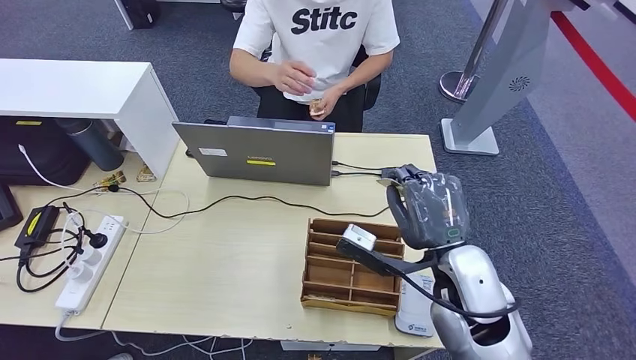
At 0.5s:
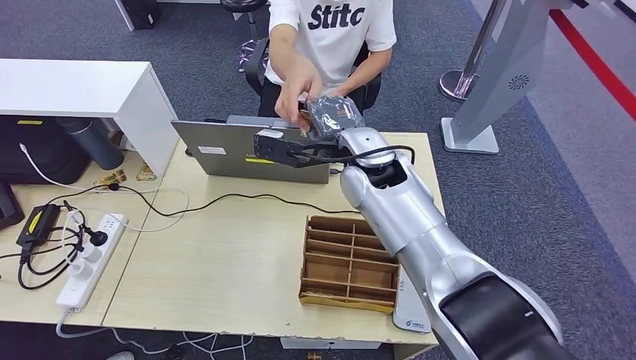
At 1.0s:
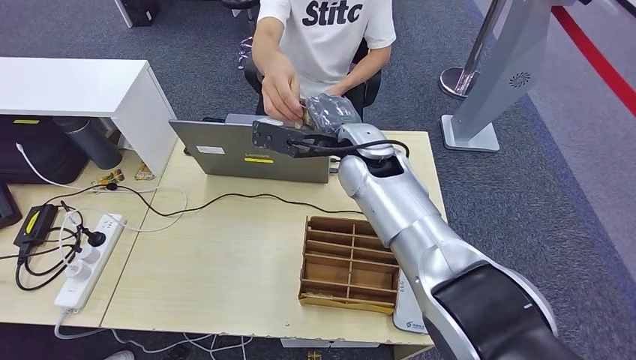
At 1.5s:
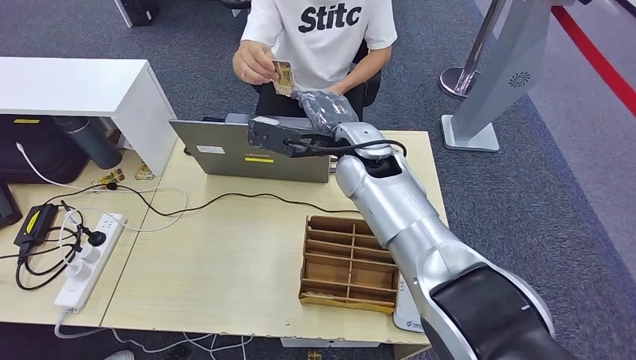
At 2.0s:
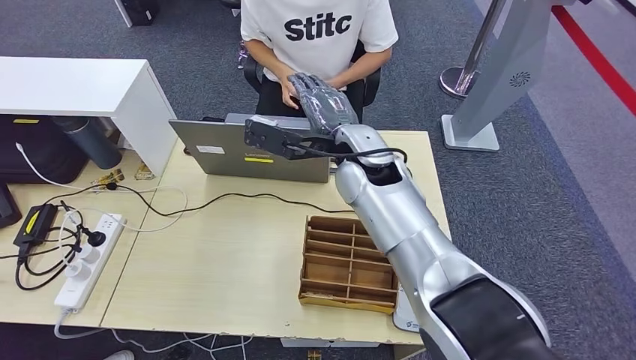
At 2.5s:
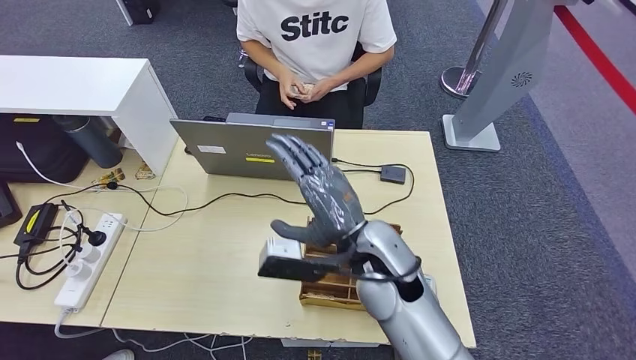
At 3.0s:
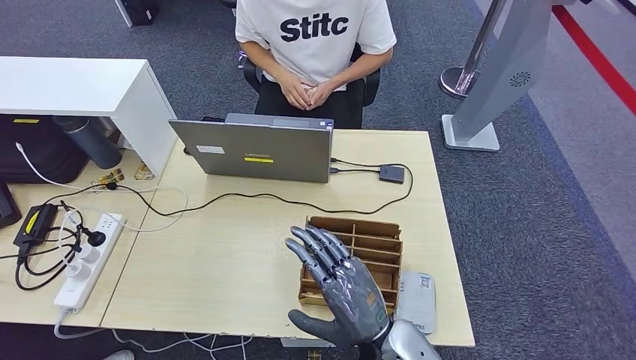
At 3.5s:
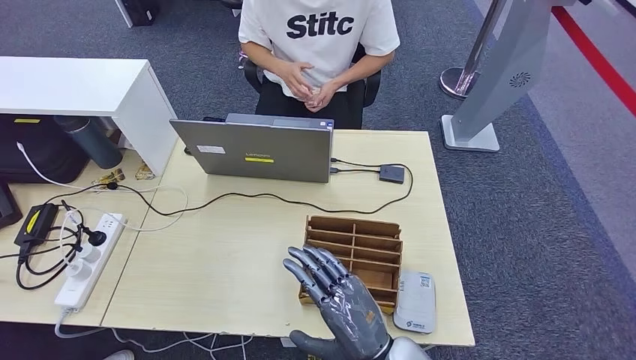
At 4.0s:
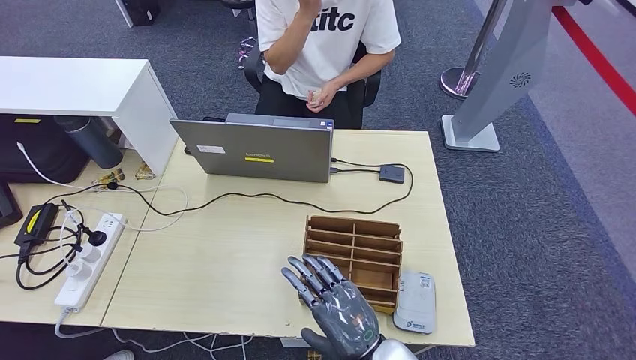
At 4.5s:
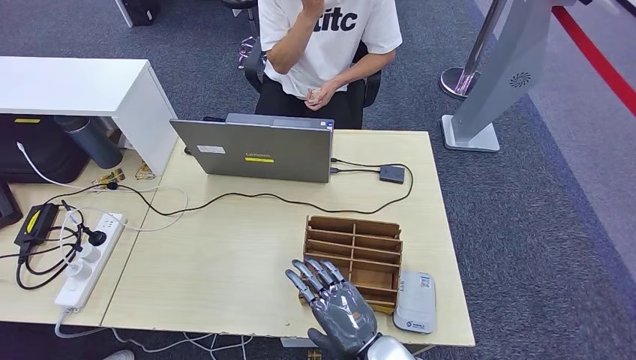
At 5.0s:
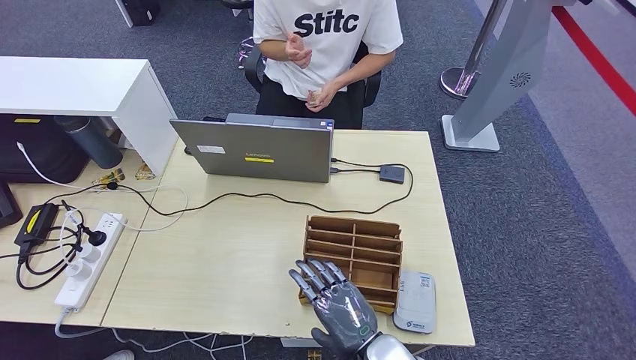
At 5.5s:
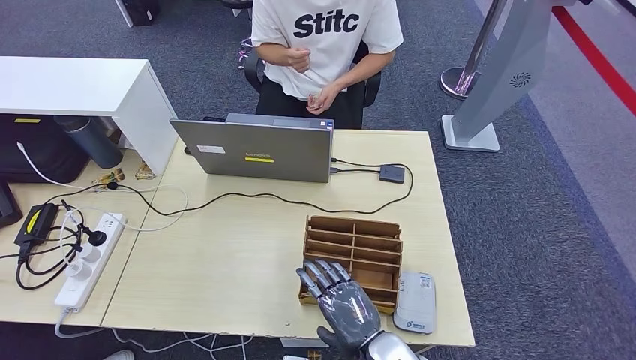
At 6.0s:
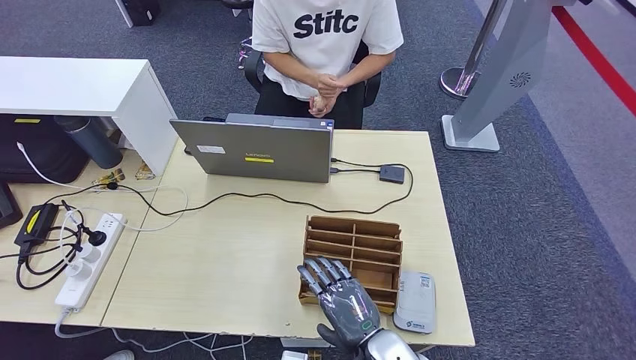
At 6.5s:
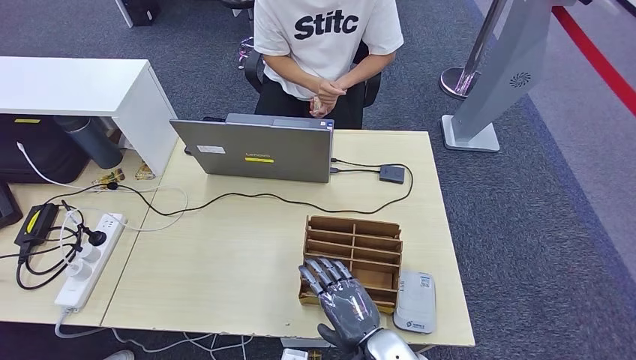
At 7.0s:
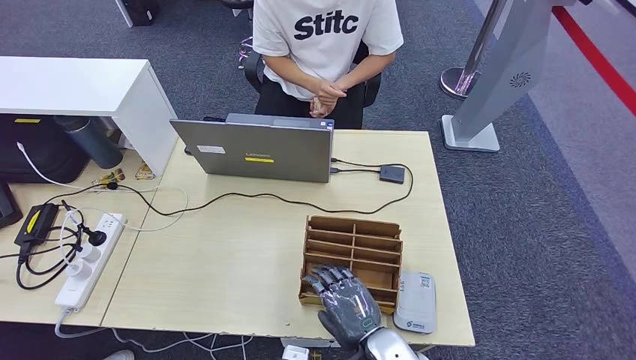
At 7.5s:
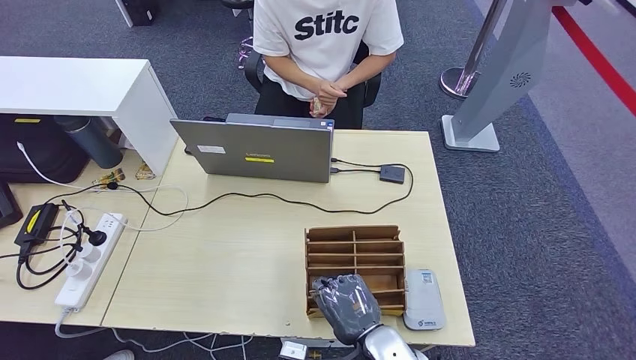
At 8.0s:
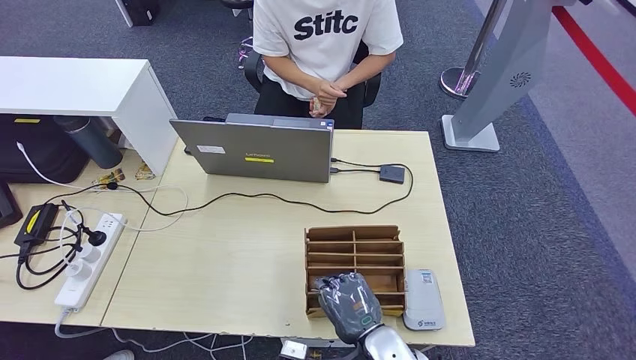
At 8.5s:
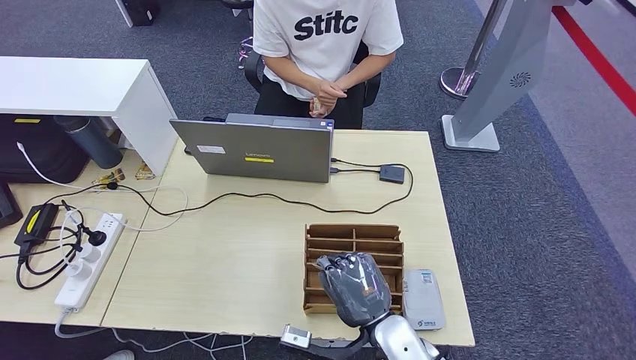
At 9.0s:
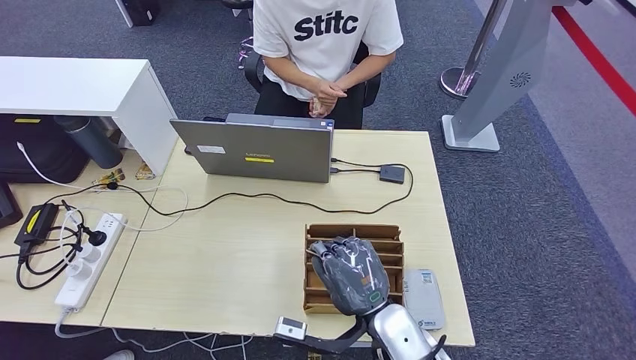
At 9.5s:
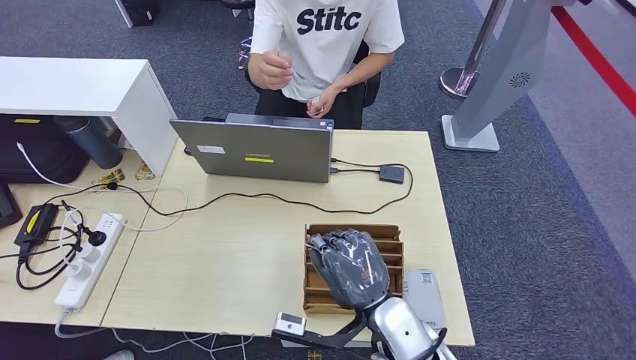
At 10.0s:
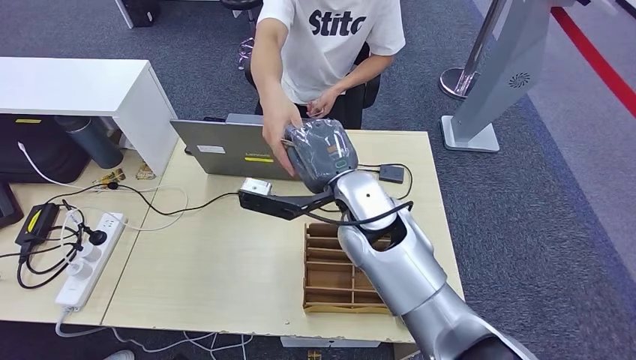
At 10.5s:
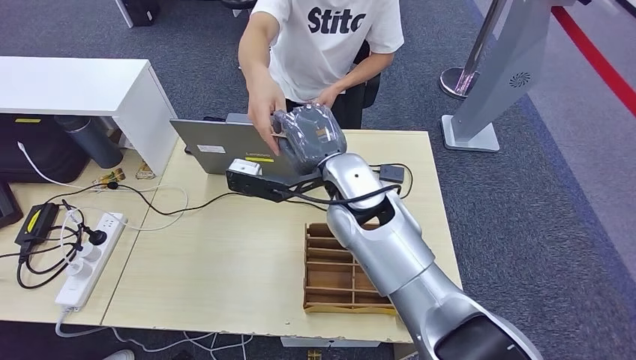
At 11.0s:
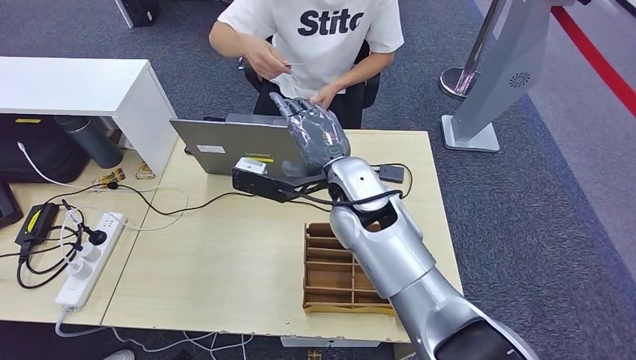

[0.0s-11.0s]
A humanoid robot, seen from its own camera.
Step, 0.0s to 2.0s: Hand the ID card to the person.
Step, 2.5s to 8.5s: Pick up the room key from the key card box.
Step, 9.0s to 11.0s: Hand the room key to the person.
2.0s to 3.5s: The left hand goes about 5 cm backward; the right hand moves backward and downward, roughly 30 cm.
3.5s to 5.5s: The right hand moves downward, roughly 5 cm.
5.5s to 7.5s: The hands move only a little.
7.5s to 9.0s: The right hand shifts roughly 5 cm upward.
9.0s to 11.0s: The right hand moves forward and upward, some 20 cm. Meanwhile the left hand moves forward, about 5 cm.
